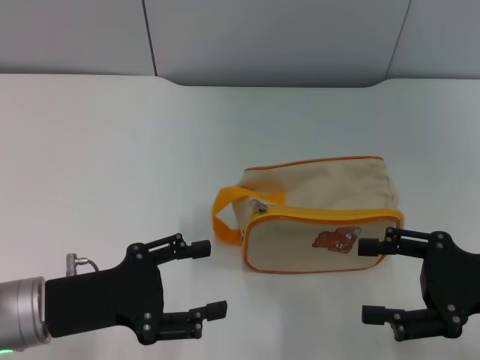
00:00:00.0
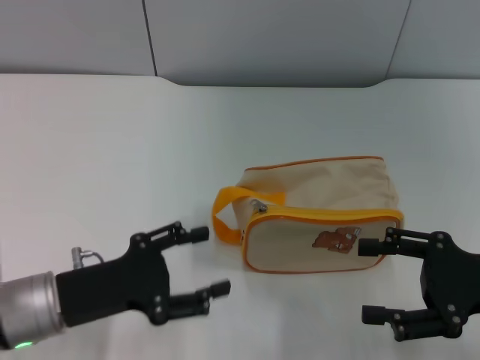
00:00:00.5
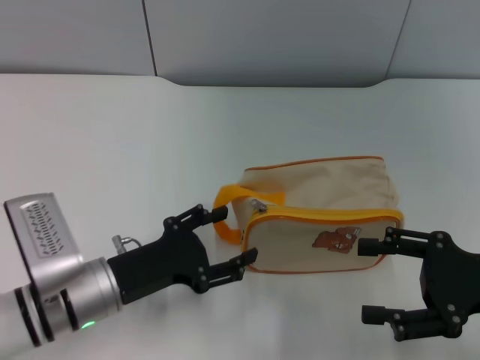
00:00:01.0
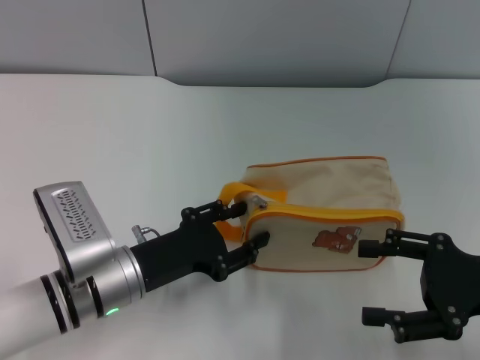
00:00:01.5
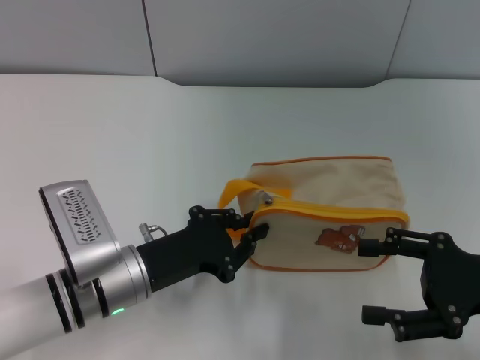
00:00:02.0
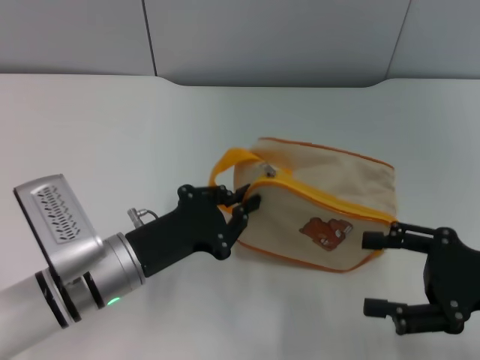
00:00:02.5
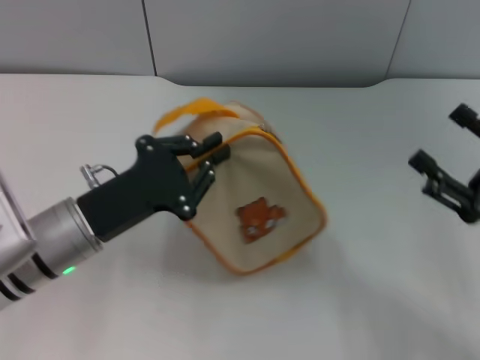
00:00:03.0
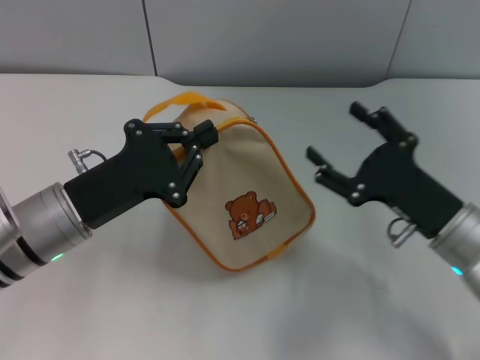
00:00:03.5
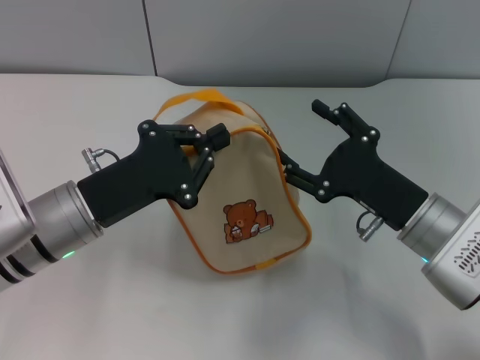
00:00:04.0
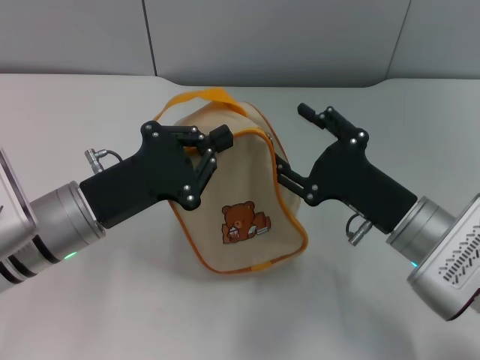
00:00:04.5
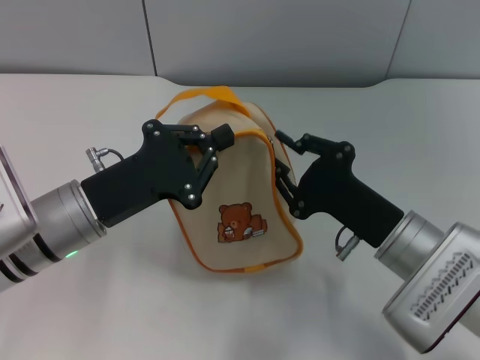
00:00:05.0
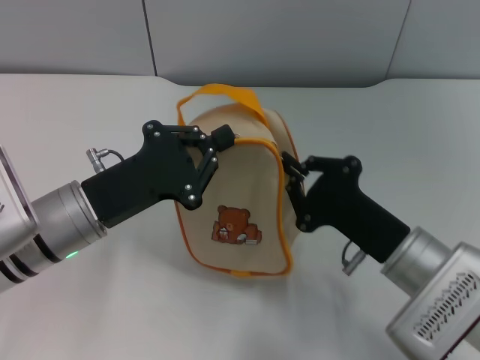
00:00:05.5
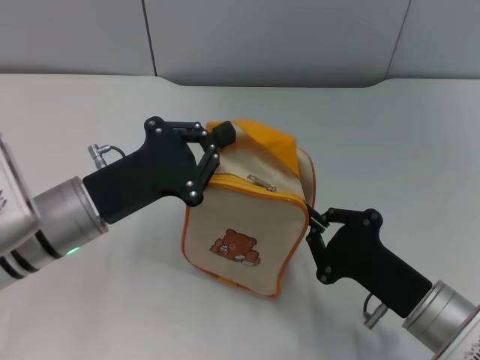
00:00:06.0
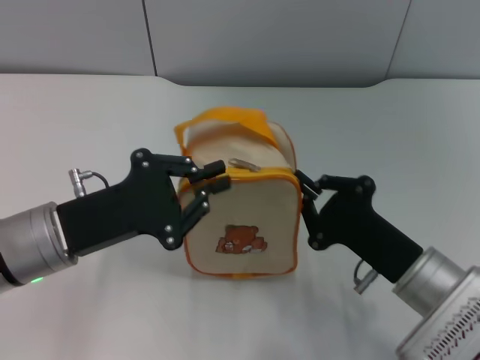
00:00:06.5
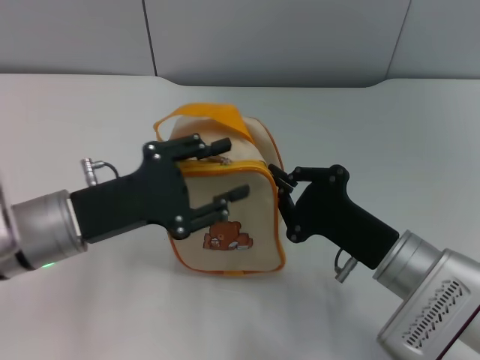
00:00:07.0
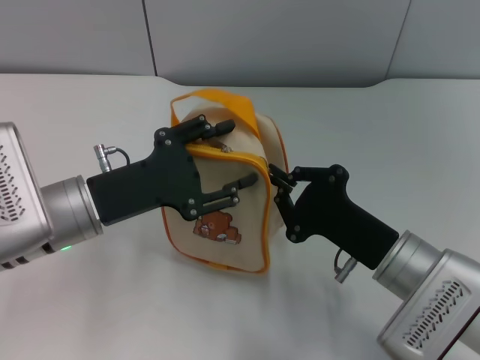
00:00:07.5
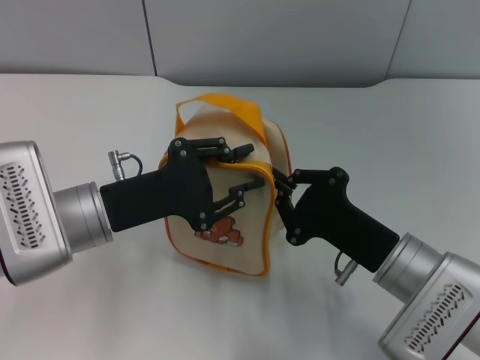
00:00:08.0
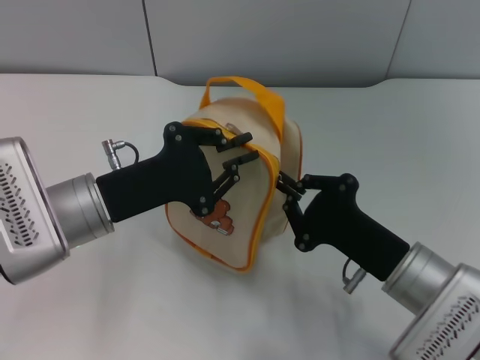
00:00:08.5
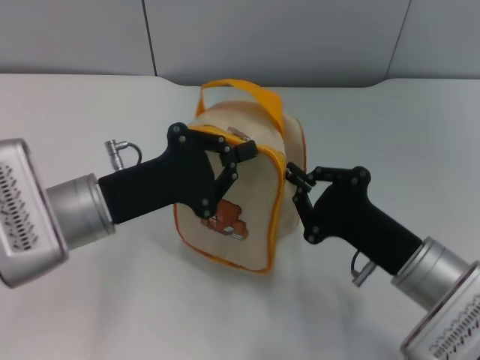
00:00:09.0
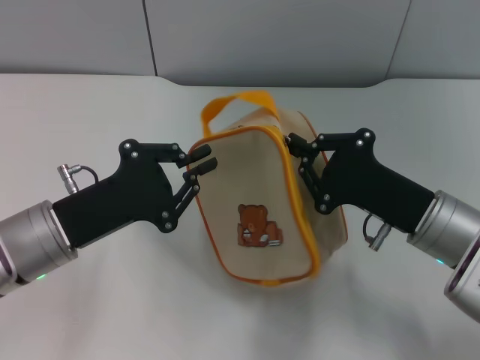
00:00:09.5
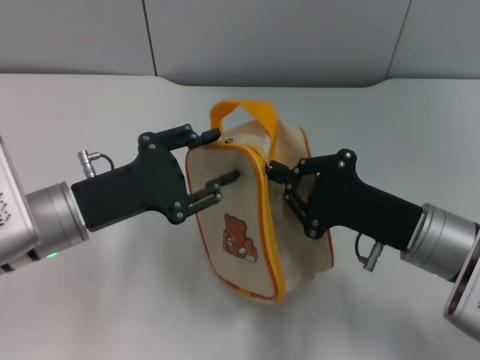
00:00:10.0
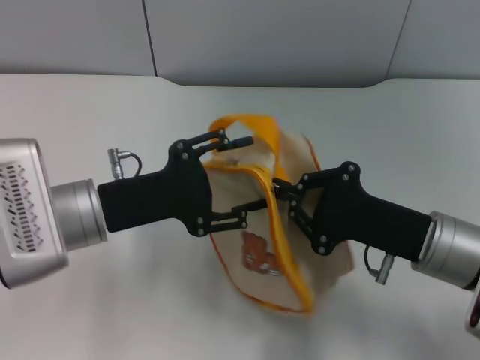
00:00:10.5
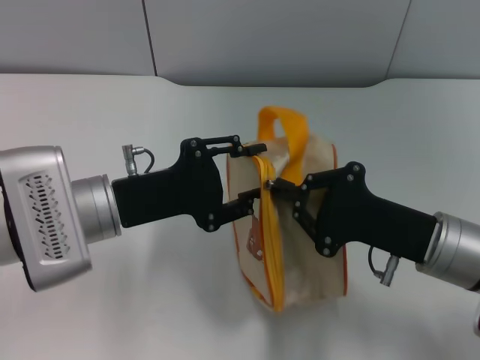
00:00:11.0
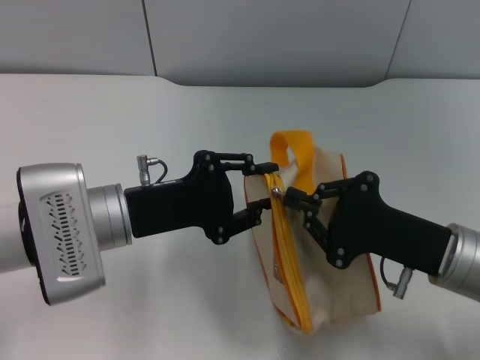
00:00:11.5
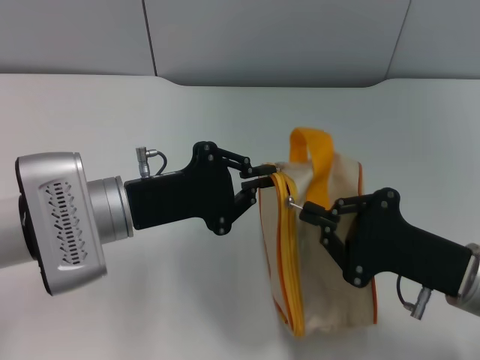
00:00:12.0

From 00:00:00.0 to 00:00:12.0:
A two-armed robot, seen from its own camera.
Step, from 00:00:00.0 to 00:00:03.0: Pick up the bag with left gripper.
From 00:00:00.0 to 00:00:02.0: The left gripper is displaced to the right by some 5 cm, and closes its fingers.
From 00:00:02.0 to 00:00:04.0: The right gripper is displaced to the left by approximately 10 cm; the left gripper is displaced upward by about 5 cm.
From 00:00:04.0 to 00:00:06.0: The right gripper heads backward, covering roughly 5 cm, and closes up.
From 00:00:06.0 to 00:00:08.0: The right gripper moves approximately 5 cm. The left gripper opens up.
From 00:00:08.0 to 00:00:10.0: The left gripper closes, then opens again.
From 00:00:10.0 to 00:00:12.0: The left gripper opens, then closes again.

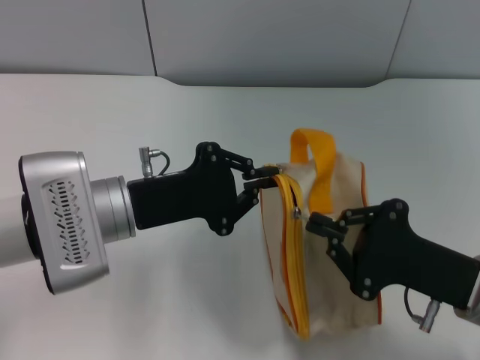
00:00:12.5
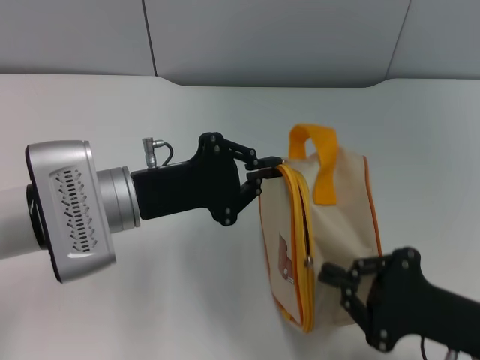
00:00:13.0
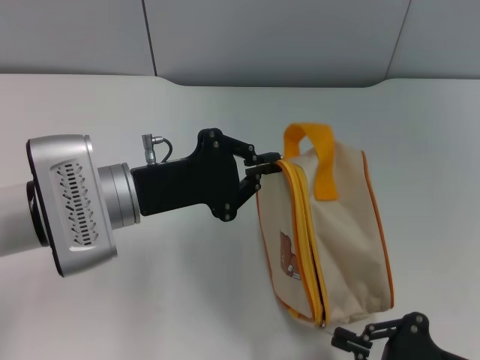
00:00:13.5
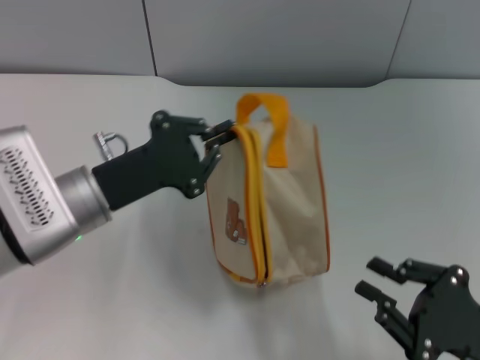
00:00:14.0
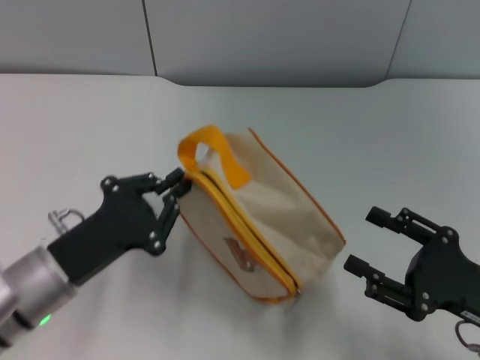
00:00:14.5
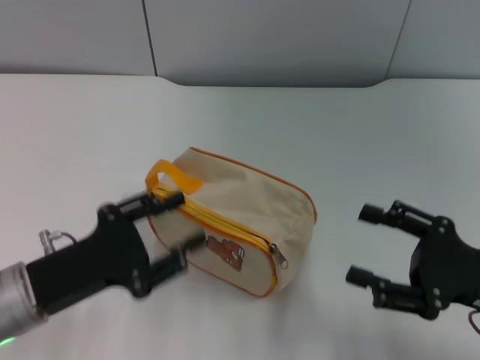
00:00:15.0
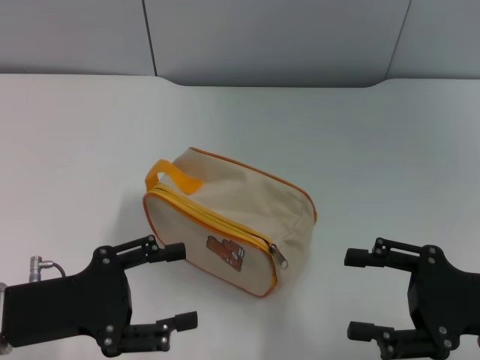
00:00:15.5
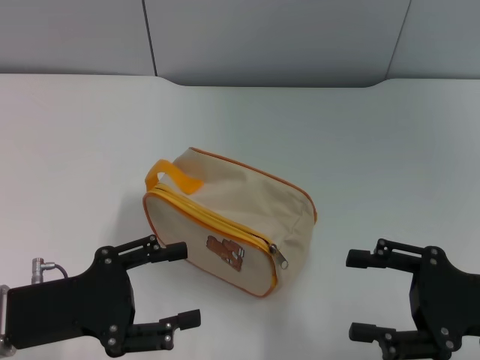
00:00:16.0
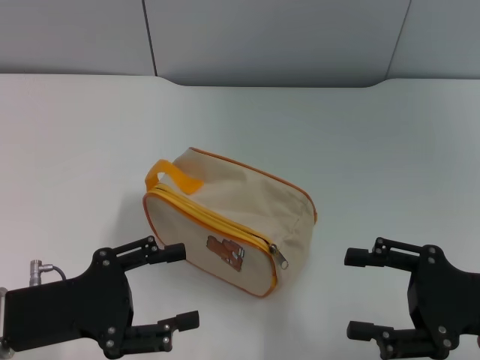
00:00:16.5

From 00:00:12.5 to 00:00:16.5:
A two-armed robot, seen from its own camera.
Step, from 00:00:14.0 to 00:00:15.0: Place the bag on the table with left gripper.
From 00:00:12.5 to 00:00:14.5: The left gripper goes approximately 10 cm backward, downward and to the left; the right gripper opens.
From 00:00:14.5 to 00:00:16.5: The right gripper opens, while the left gripper ends up roughly 5 cm from where it was, and opens.

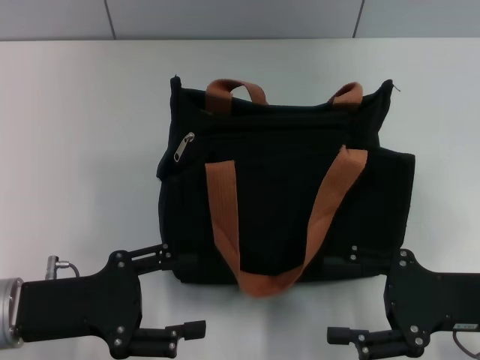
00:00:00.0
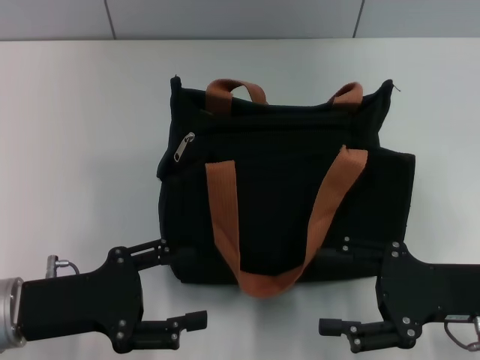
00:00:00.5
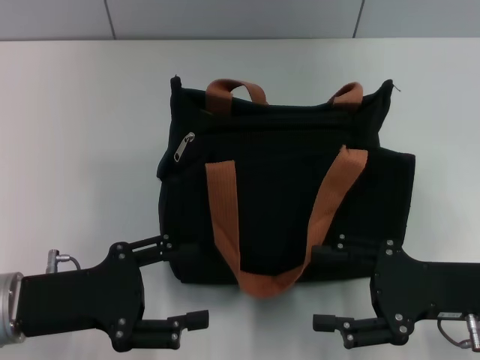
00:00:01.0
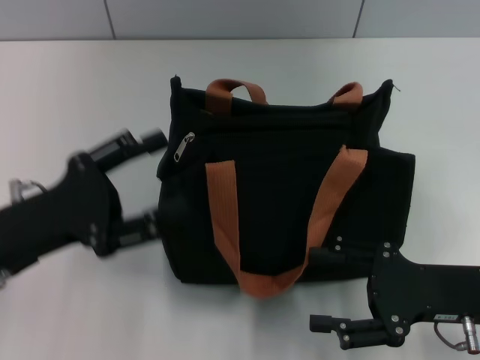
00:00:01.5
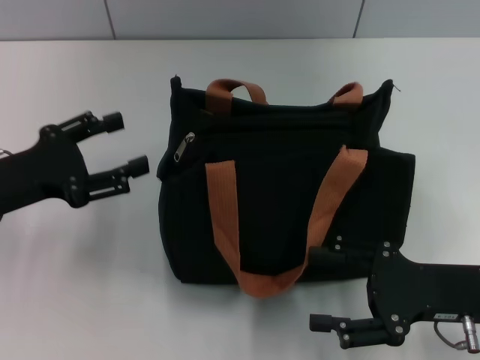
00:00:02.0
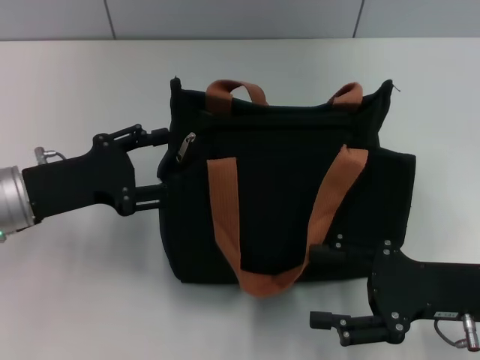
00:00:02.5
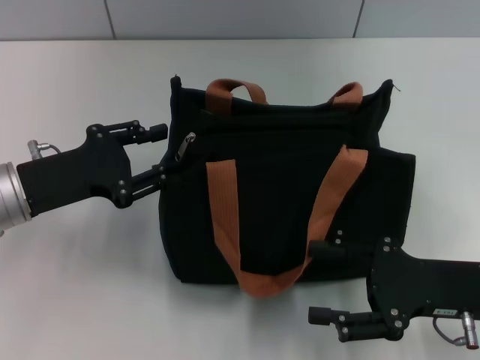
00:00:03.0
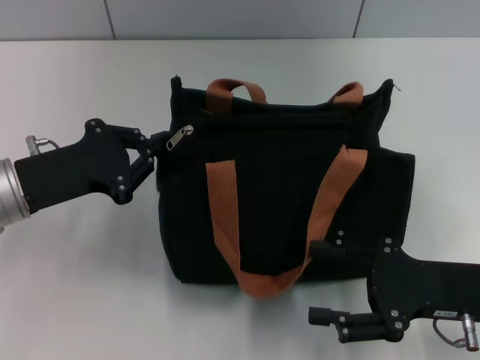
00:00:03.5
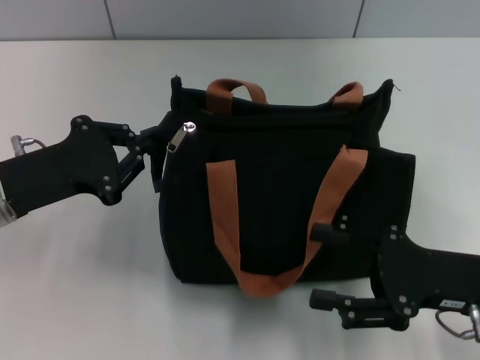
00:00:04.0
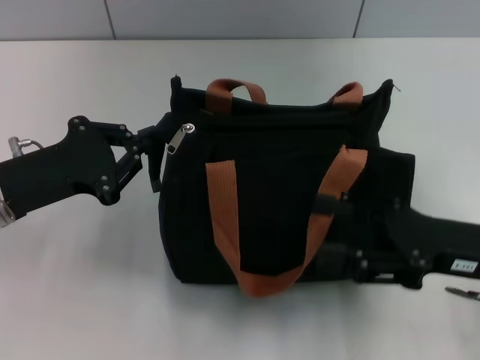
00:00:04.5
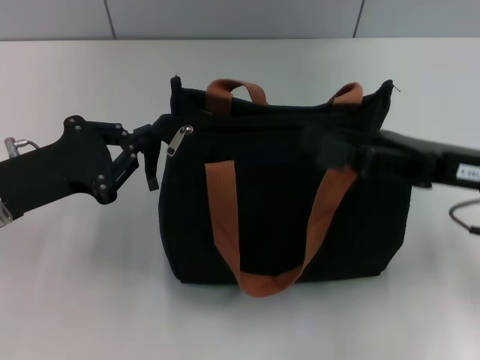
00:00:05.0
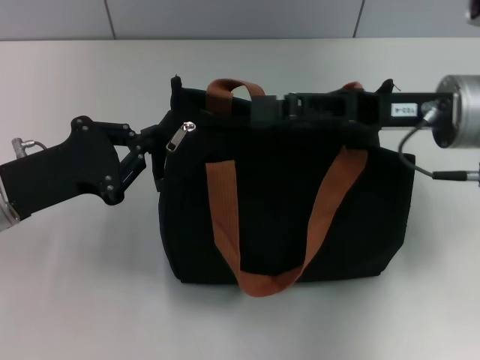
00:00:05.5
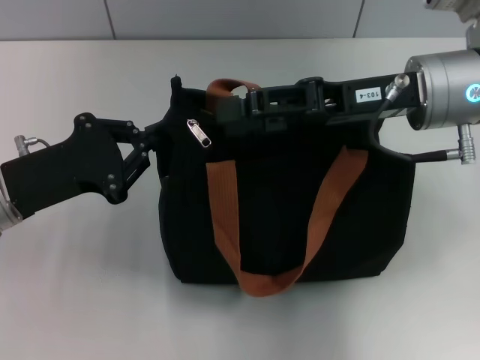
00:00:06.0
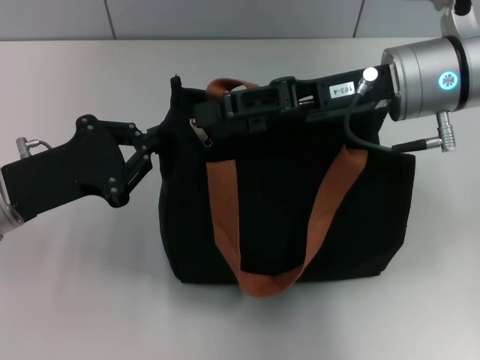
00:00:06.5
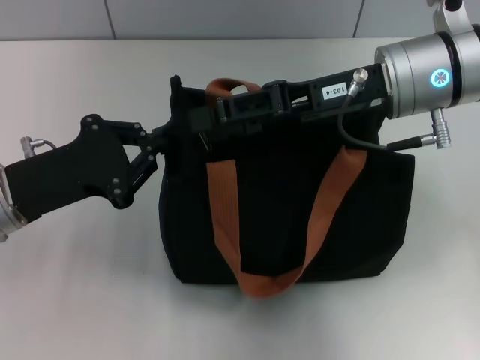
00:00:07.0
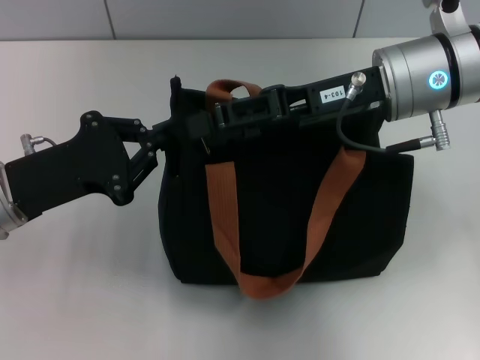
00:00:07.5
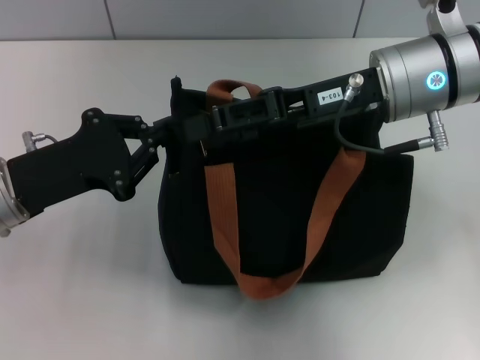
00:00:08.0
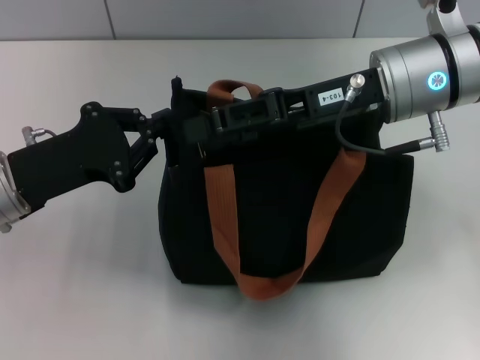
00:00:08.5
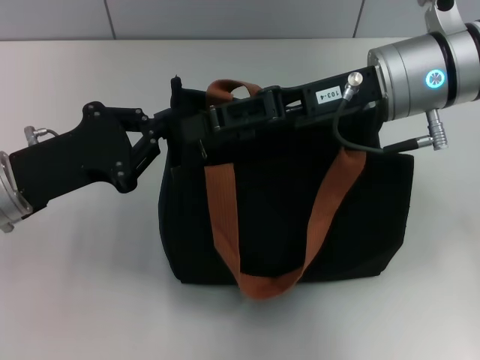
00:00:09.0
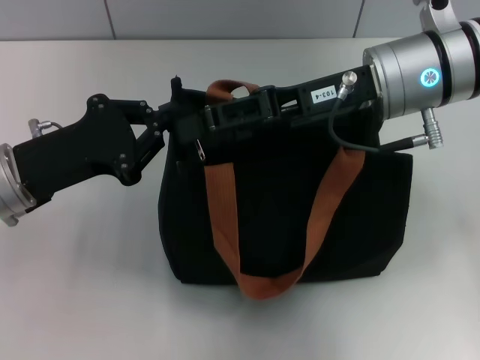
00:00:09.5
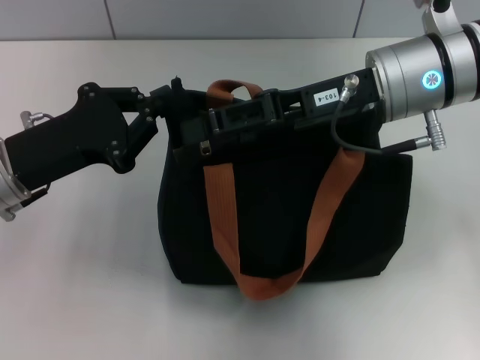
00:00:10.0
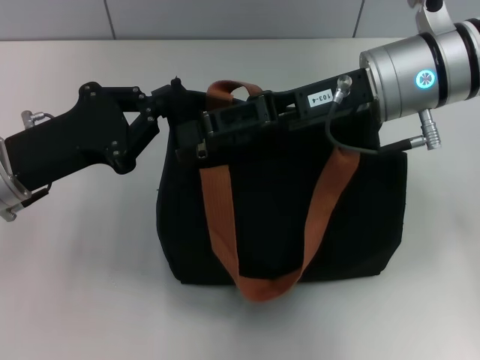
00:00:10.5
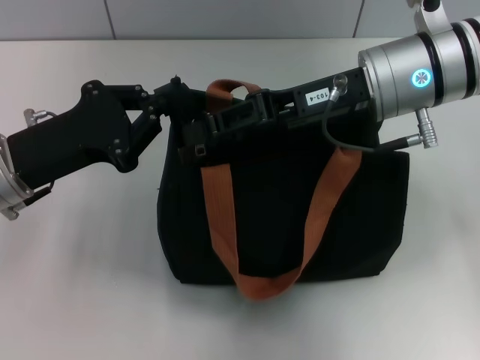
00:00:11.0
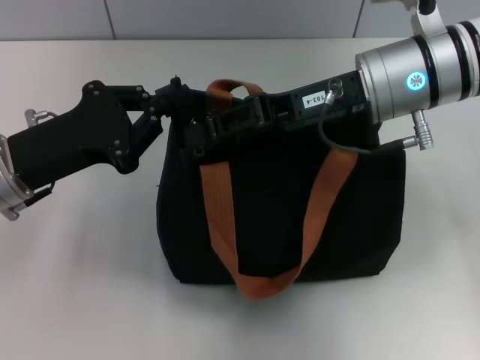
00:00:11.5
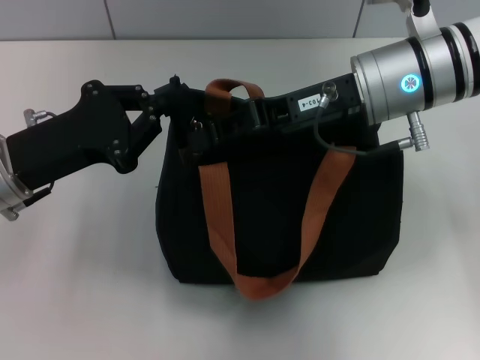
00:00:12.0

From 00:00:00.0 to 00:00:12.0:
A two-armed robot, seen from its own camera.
From 00:00:00.0 to 00:00:02.0: The left gripper moves forward, about 5 cm.
From 00:00:02.0 to 00:00:04.0: The left gripper closes.
From 00:00:04.0 to 00:00:06.0: The right gripper is displaced forward, upward and to the left by some 20 cm.
From 00:00:06.0 to 00:00:10.0: The grippers make only small movements.
From 00:00:10.0 to 00:00:12.0: The right gripper closes up.
